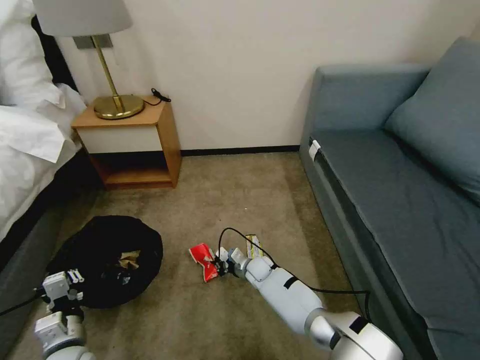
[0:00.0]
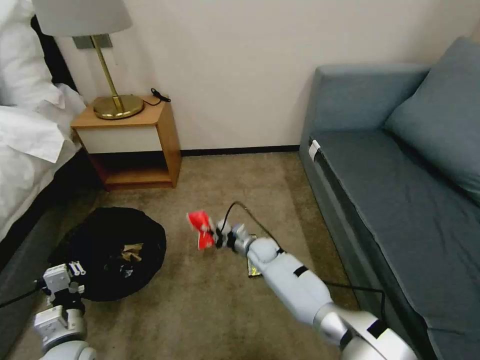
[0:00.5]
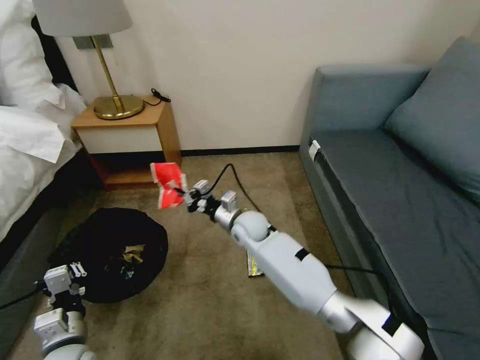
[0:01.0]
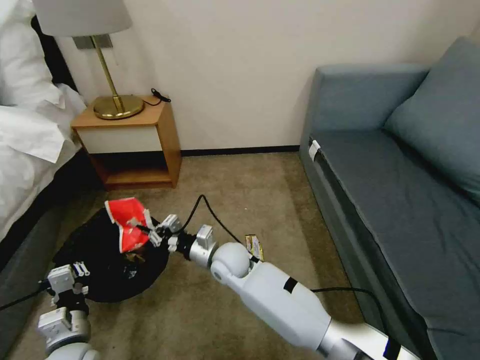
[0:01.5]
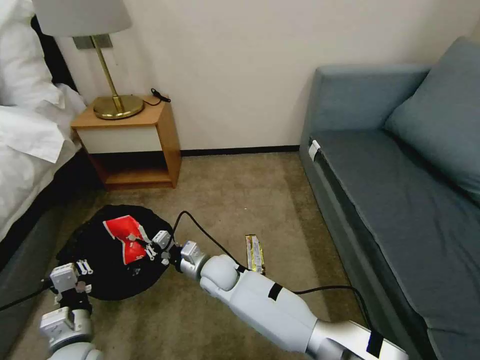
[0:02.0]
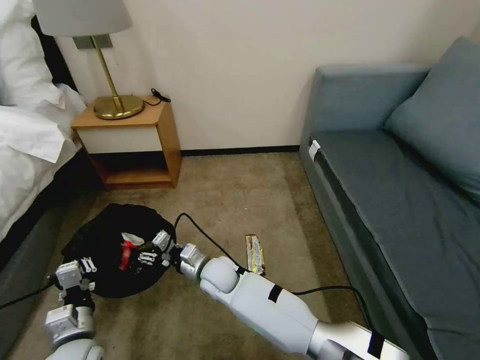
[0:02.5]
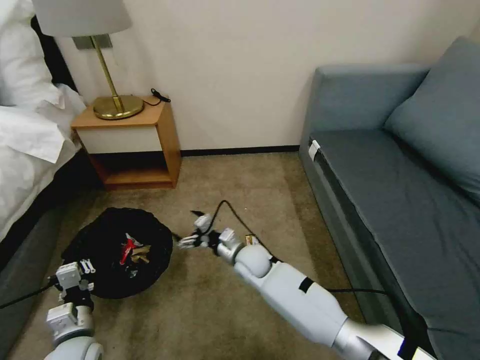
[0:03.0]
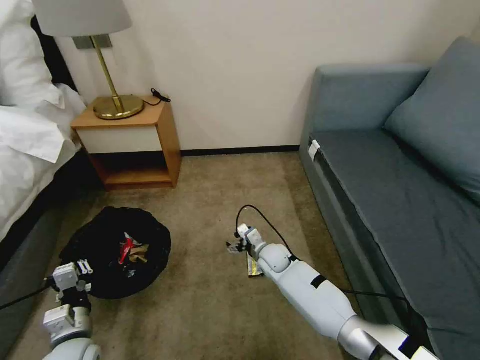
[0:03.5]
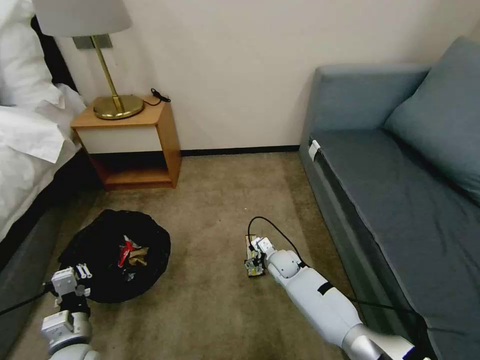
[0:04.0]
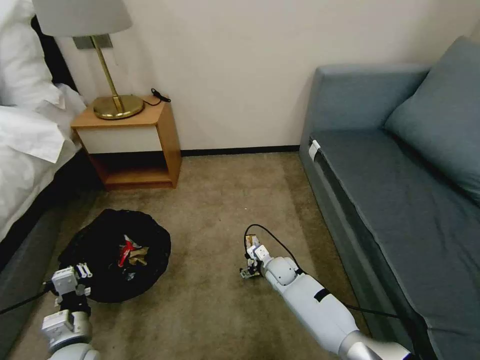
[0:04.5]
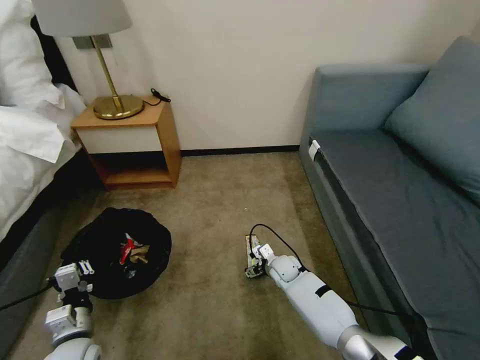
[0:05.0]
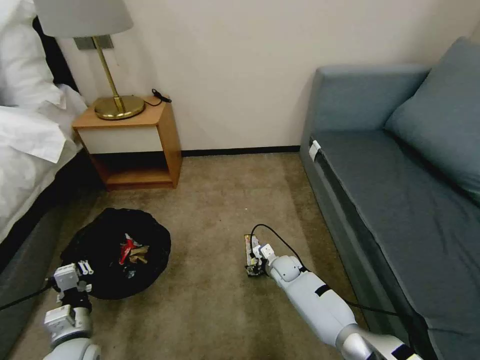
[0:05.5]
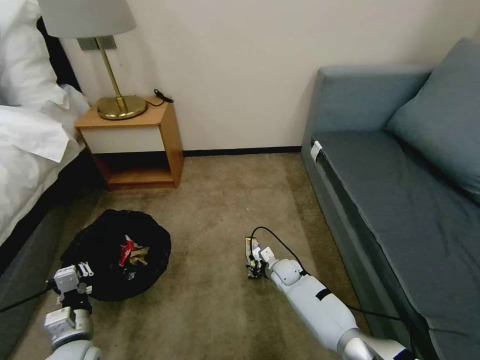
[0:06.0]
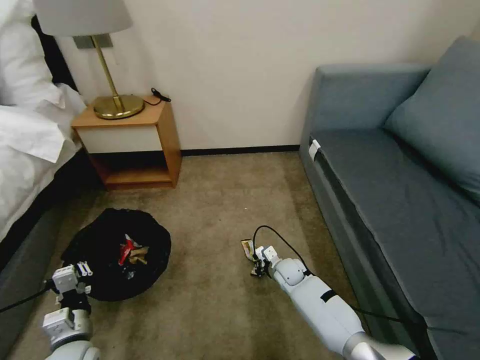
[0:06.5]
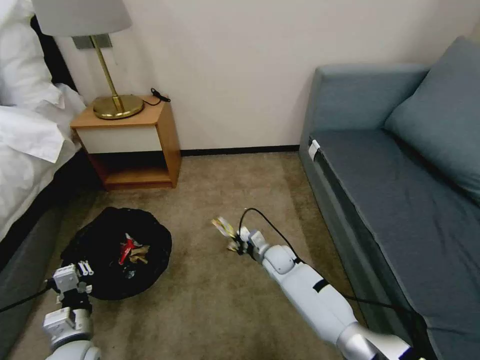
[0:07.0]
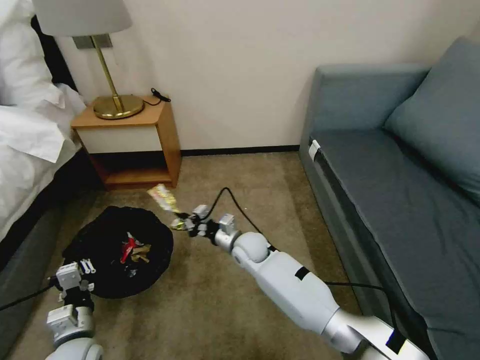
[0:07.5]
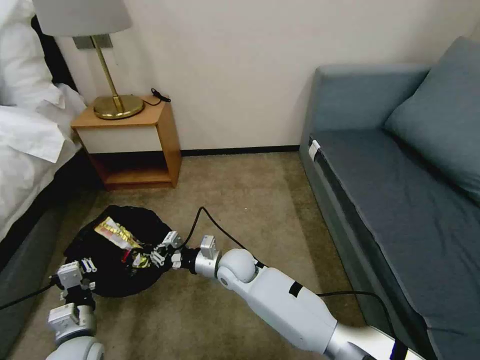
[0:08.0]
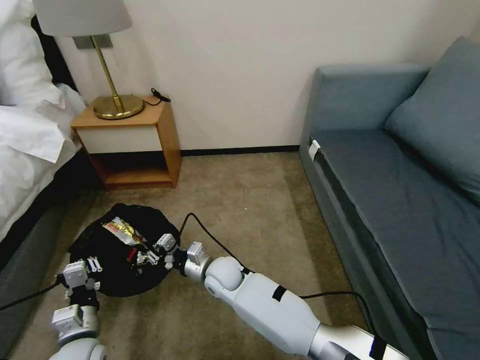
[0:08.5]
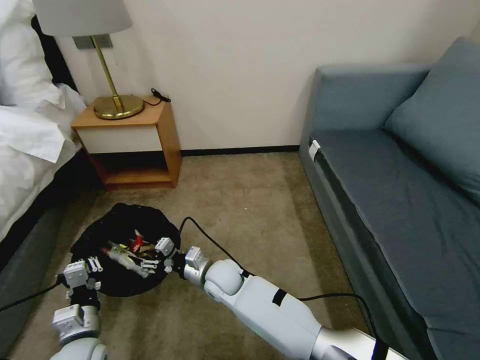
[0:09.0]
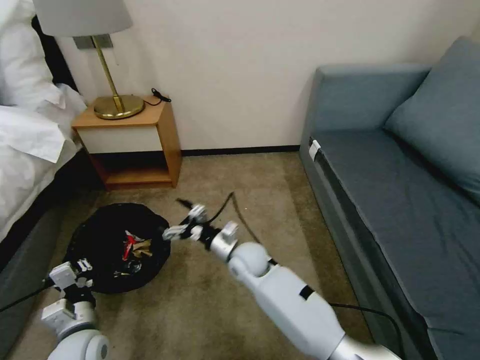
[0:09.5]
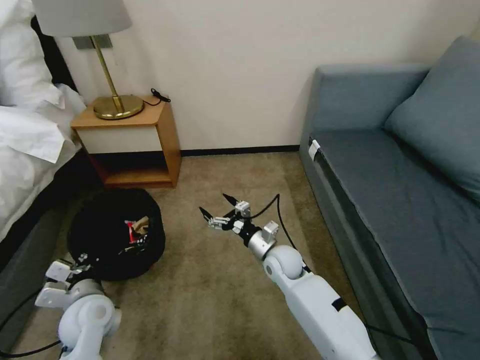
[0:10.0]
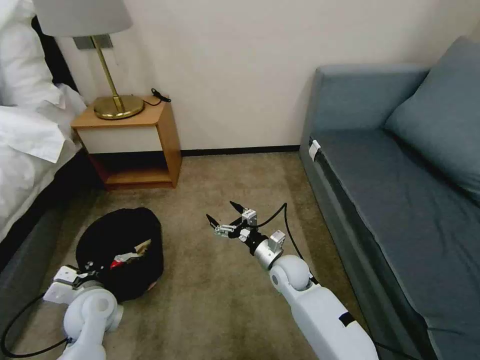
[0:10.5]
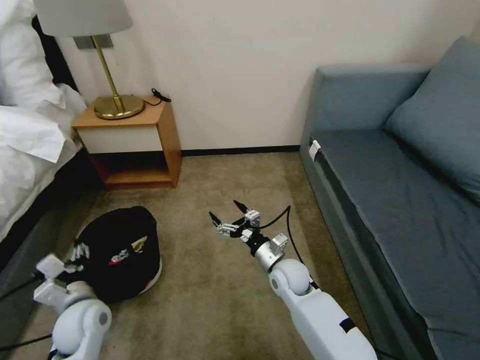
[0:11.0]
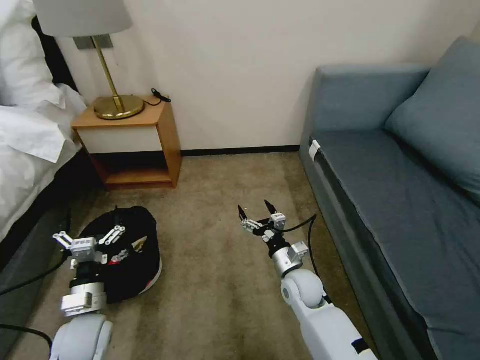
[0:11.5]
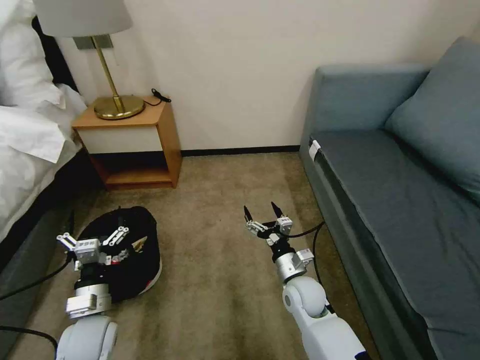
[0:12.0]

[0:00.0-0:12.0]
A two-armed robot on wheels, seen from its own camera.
Task of the whole recording: Pick up the trash bin, then pick up the garbage on the floor and place it into the trash bin.
0:00.0 to 0:02.0: The right gripper moves upward, to the left and backward, roughly 20 cm.
0:02.0 to 0:04.0: The right gripper is displaced to the right and downward by some 20 cm, and opens up.
0:04.0 to 0:06.0: The right gripper closes its fingers.
0:06.0 to 0:08.0: The right gripper moves to the left and upward, some 20 cm, and closes.
0:08.0 to 0:10.0: The right gripper moves to the right, some 15 cm, and opens up. Meanwhile the left gripper goes about 5 cm forward.
0:10.0 to 0:12.0: The left gripper opens its fingers; the right gripper moves backward, approximately 10 cm.

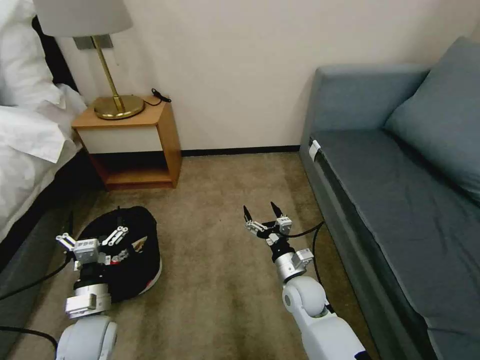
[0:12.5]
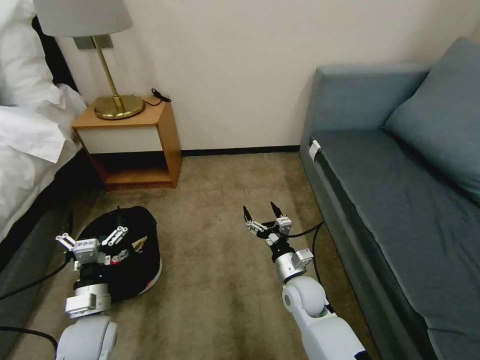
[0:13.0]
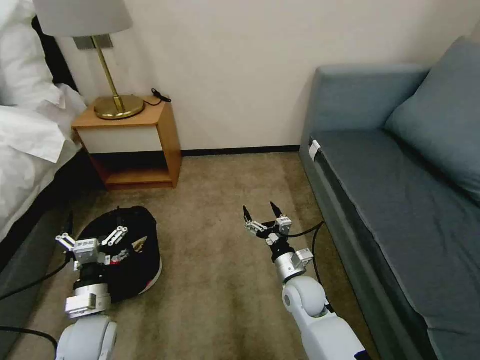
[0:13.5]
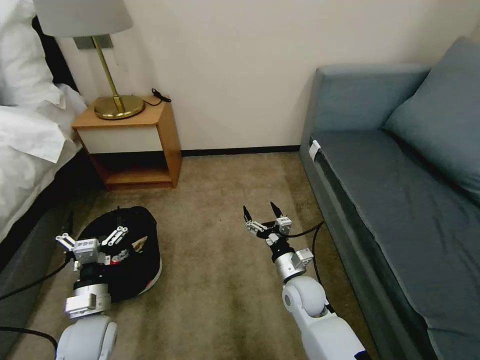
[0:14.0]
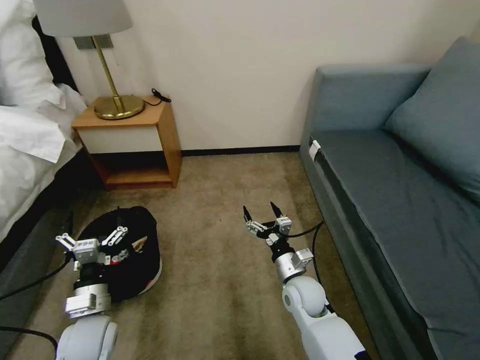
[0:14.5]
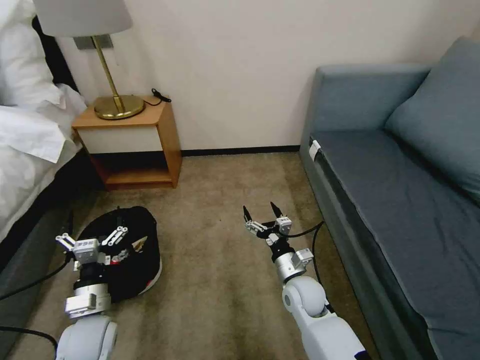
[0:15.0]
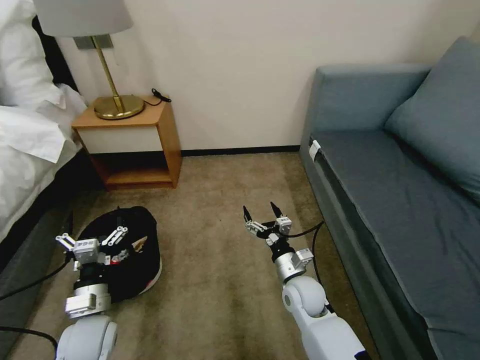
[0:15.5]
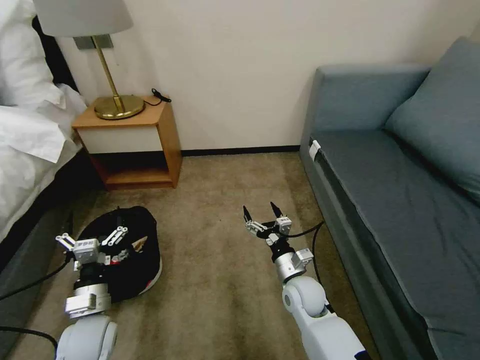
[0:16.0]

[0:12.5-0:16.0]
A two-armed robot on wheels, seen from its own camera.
Task of the whole recording: Pick up the trash bin, then pick up the garbage on the floor and place it into the trash bin.
0:12.5 to 0:16.0: Both grippers stay put.

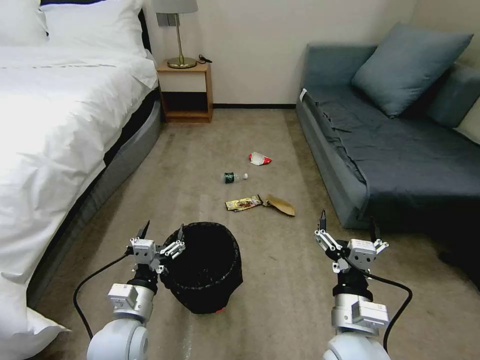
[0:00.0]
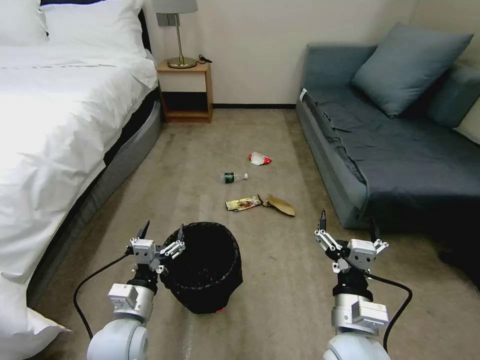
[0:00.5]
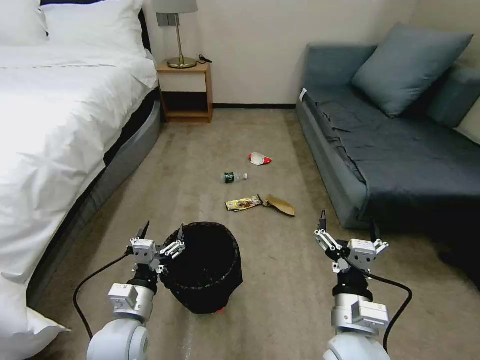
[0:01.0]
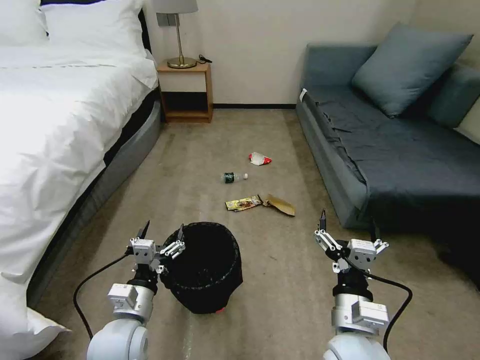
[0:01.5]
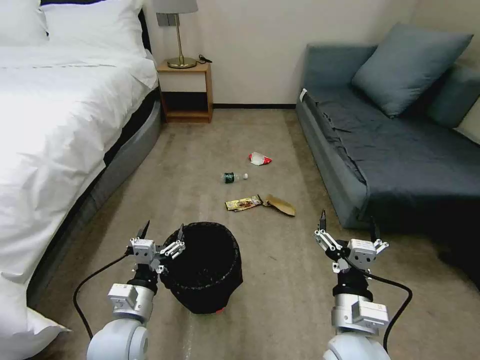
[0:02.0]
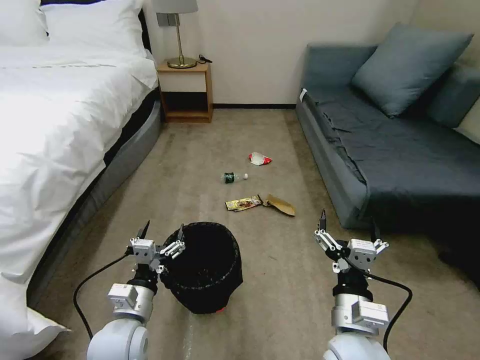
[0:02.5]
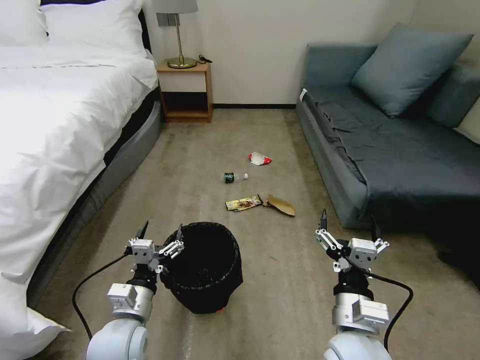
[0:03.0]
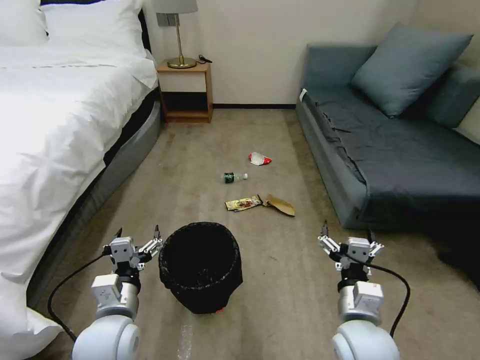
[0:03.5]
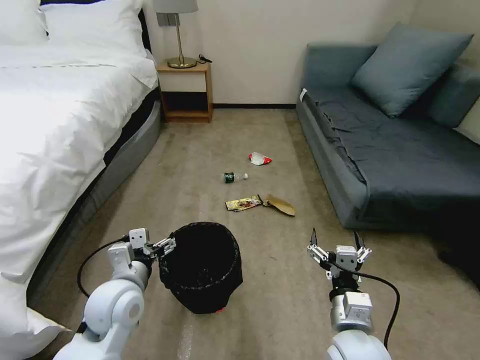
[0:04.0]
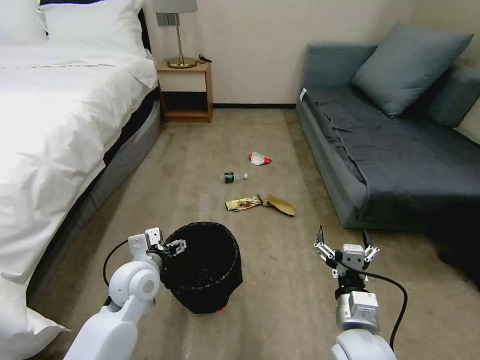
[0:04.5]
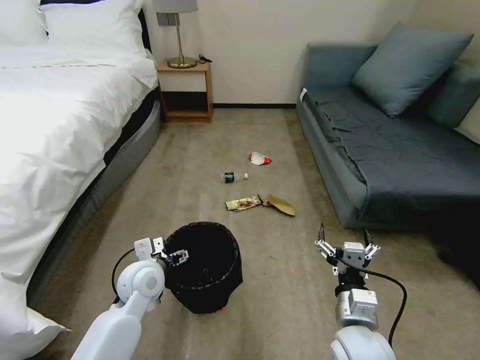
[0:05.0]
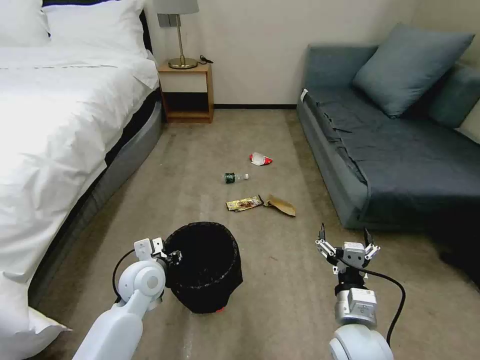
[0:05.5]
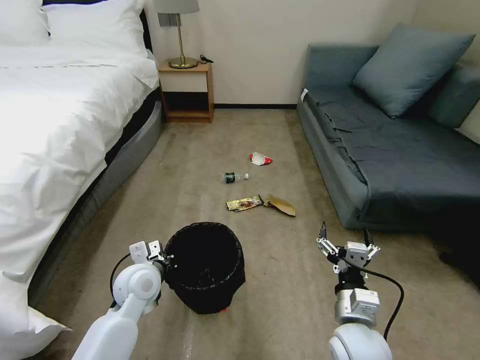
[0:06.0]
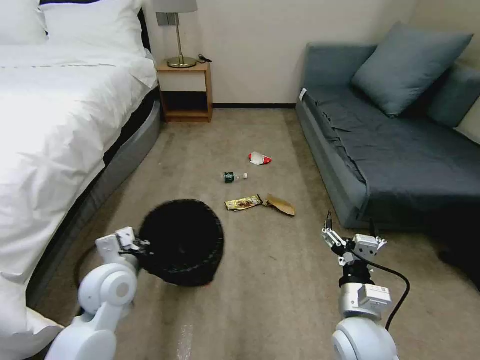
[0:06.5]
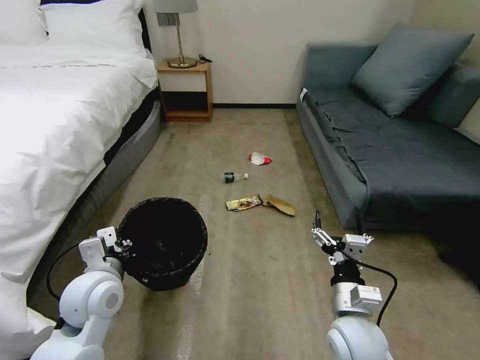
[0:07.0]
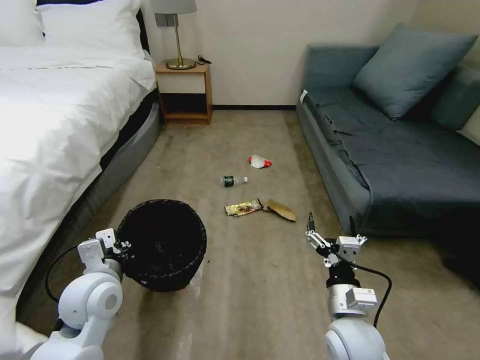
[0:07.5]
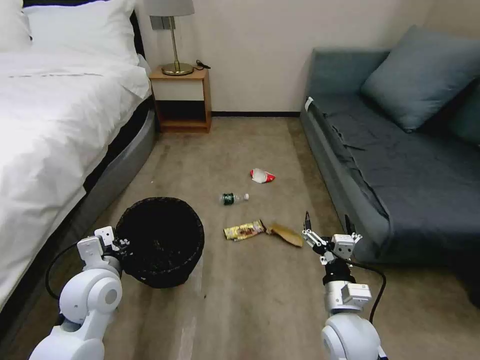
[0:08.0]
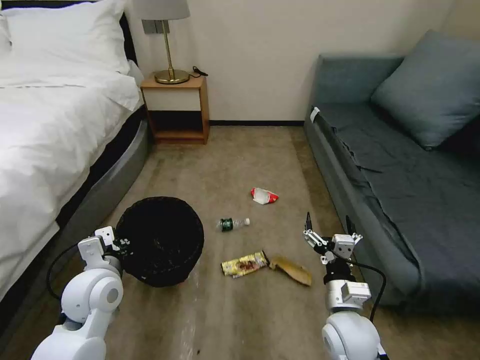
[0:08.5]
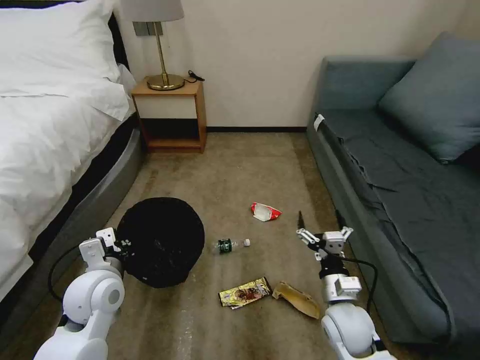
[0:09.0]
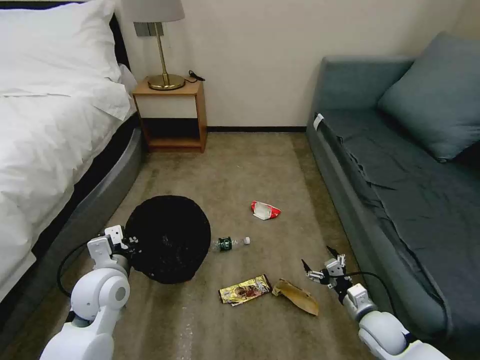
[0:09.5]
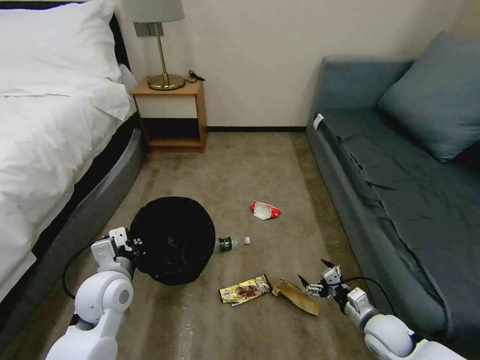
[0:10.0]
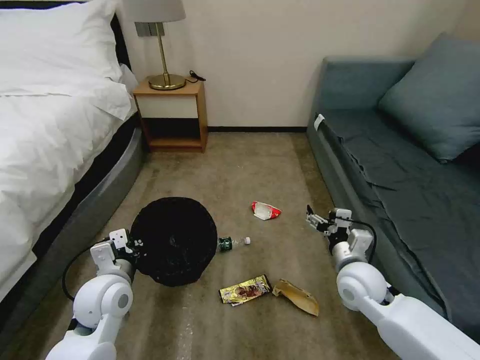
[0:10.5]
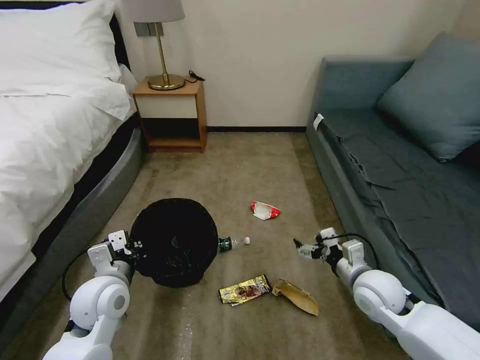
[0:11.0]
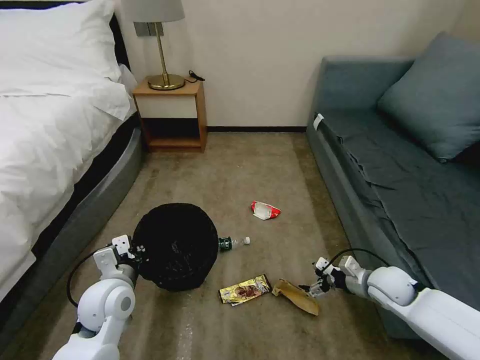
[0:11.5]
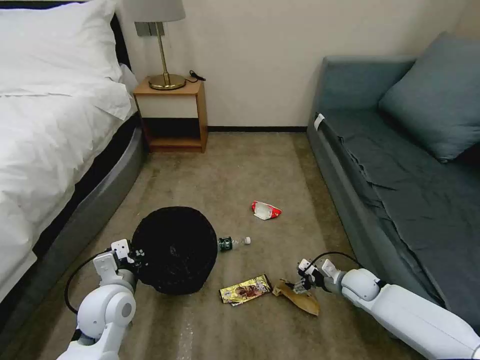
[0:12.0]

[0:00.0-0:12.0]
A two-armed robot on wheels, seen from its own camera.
Task of the whole recording: Pick up the trash bin, then pick up the garbage on the floor and place it into the trash bin.
0:02.0 to 0:04.0: The left gripper heads upward and forward, covering approximately 10 cm.
0:04.0 to 0:06.0: The left gripper is displaced forward by roughly 5 cm, and closes up.
0:06.0 to 0:08.0: The left gripper moves upward and to the left, about 10 cm.
0:08.0 to 0:10.0: The right gripper moves to the right and downward, about 20 cm.
0:10.0 to 0:12.0: The right gripper shifts about 10 cm forward, and moves some 15 cm upward and comes back.
